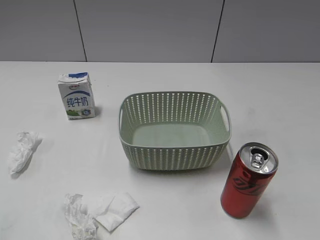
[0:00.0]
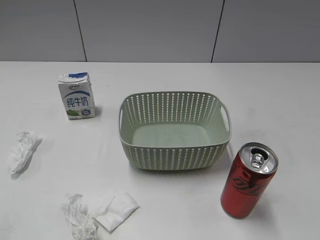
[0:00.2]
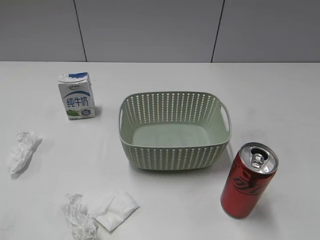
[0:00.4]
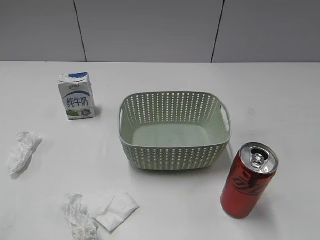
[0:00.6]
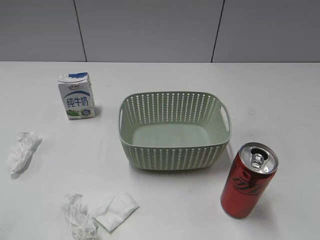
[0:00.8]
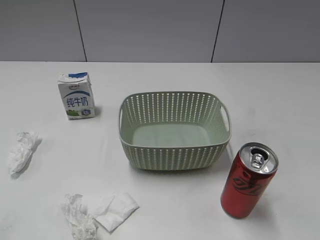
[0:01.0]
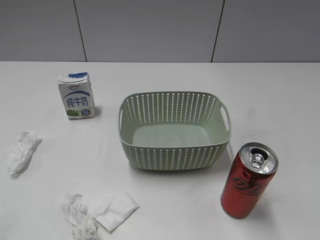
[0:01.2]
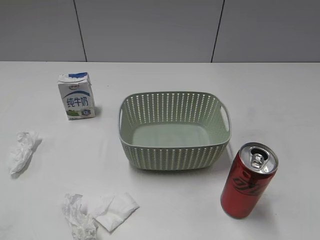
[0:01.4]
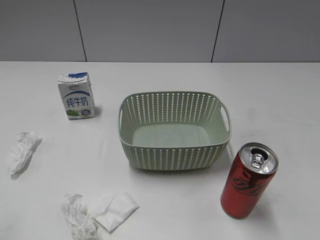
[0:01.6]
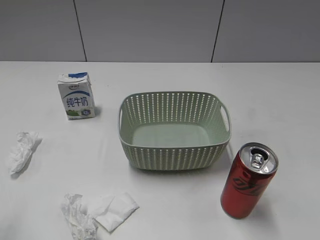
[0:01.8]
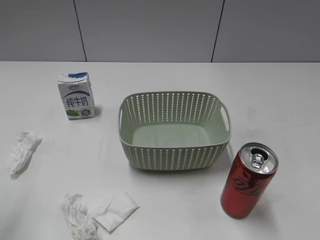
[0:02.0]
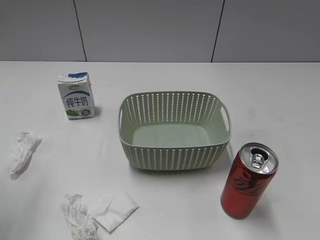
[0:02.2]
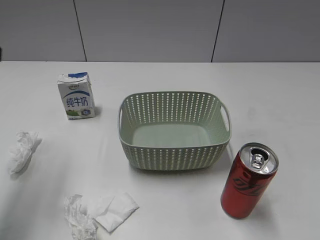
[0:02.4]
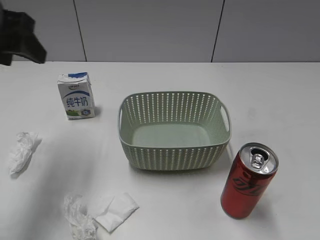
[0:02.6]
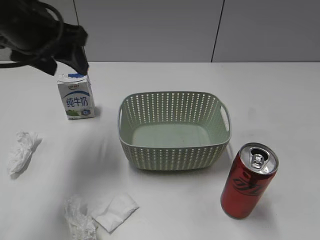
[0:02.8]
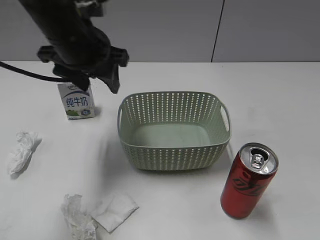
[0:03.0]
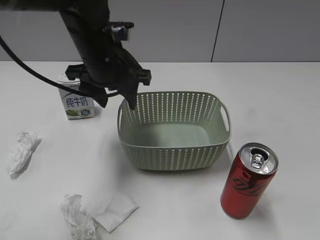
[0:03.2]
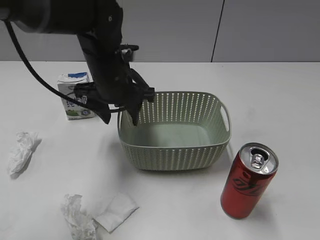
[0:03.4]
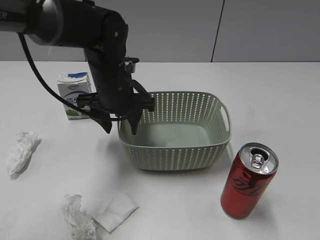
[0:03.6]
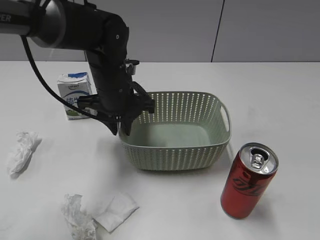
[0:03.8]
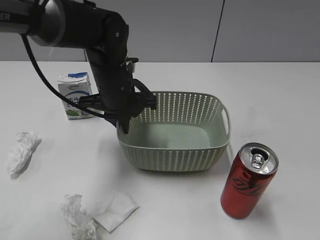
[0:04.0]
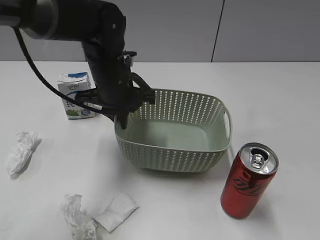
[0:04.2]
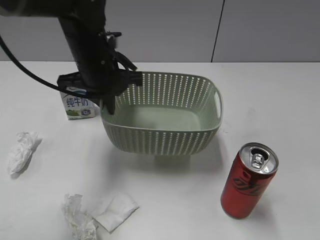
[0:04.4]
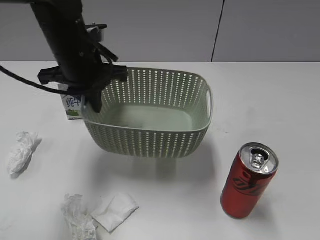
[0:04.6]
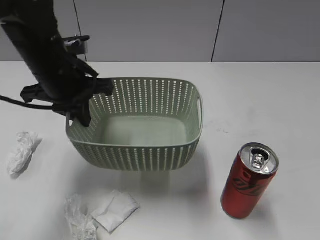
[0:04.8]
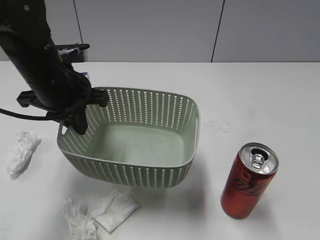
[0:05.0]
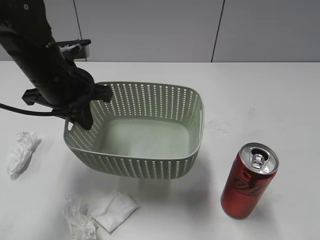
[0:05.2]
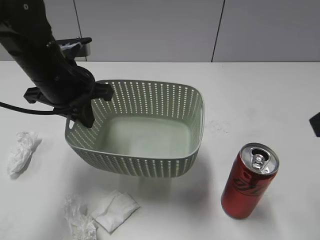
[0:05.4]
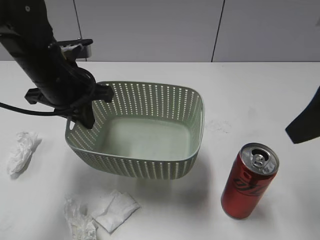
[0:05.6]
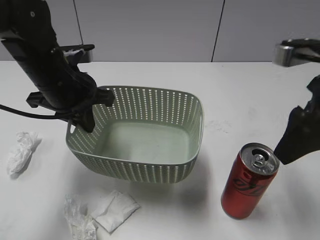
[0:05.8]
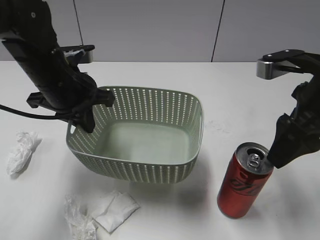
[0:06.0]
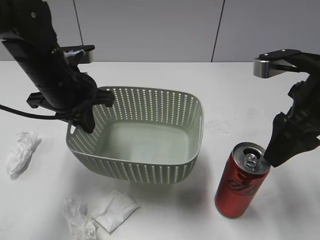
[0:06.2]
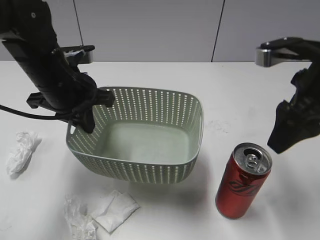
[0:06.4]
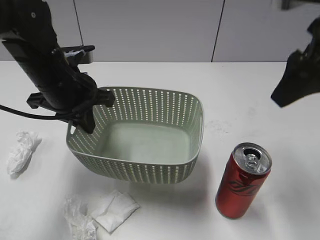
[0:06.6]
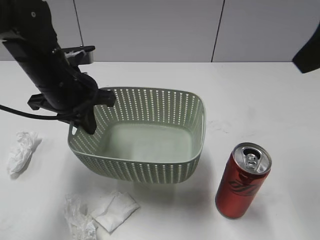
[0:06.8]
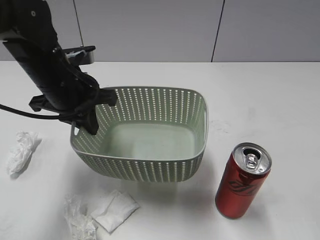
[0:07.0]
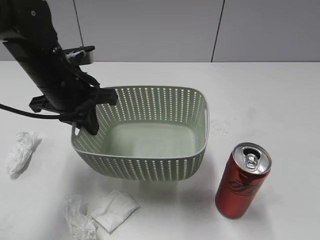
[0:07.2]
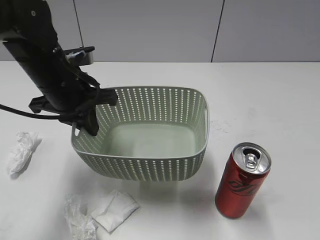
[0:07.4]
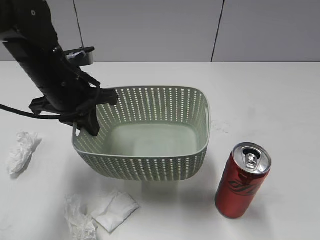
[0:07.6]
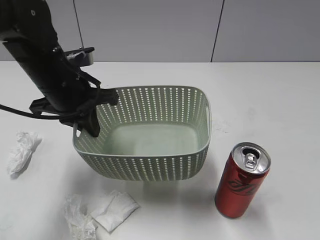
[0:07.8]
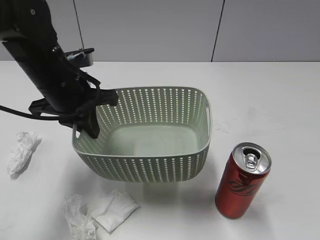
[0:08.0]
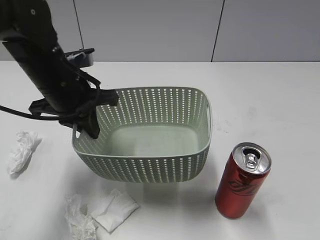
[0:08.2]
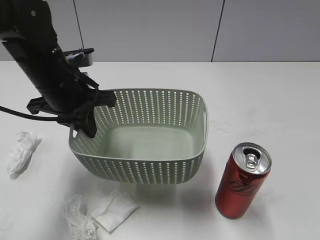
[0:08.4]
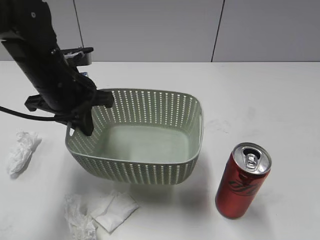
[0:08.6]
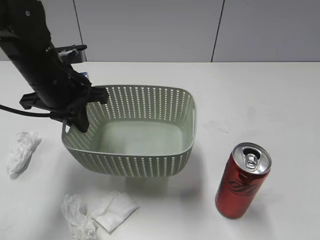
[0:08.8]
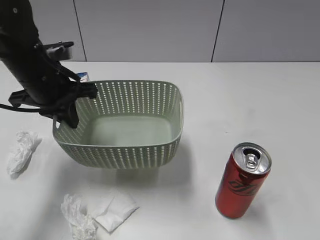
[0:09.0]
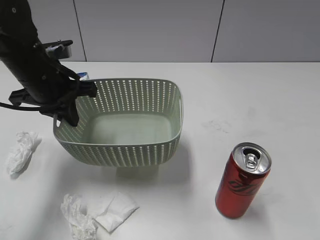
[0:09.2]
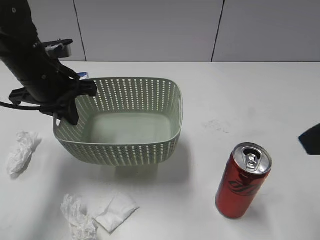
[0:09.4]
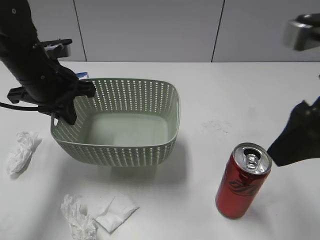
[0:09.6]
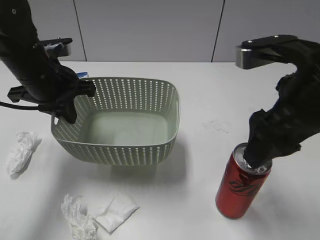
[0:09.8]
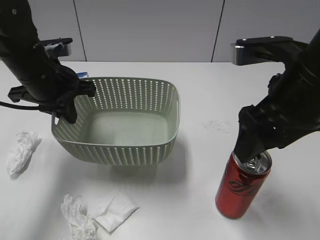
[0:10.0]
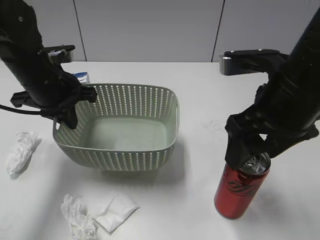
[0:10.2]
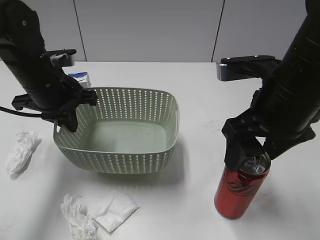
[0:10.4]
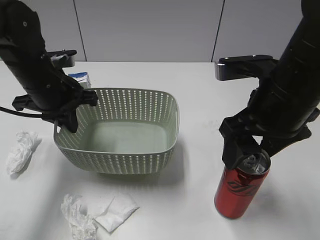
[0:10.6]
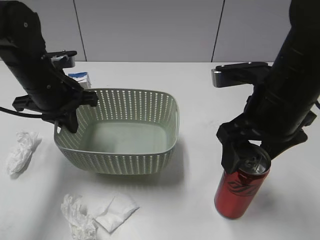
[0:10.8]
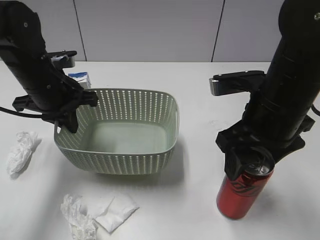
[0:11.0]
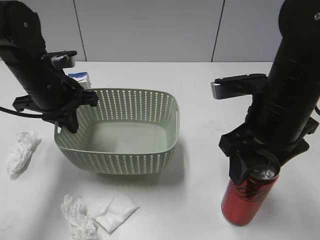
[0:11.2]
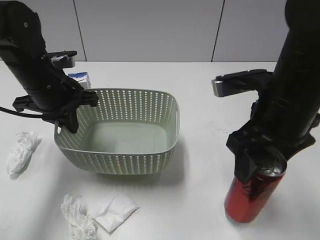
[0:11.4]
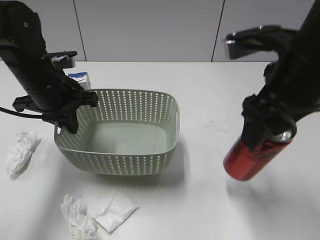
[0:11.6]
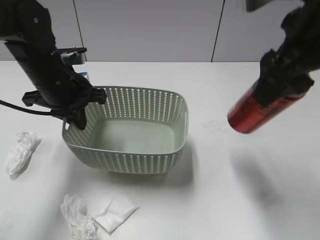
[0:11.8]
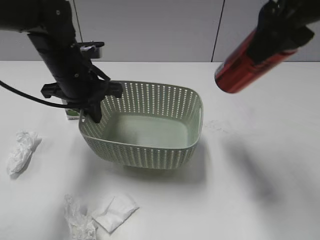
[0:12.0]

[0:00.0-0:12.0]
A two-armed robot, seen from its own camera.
Step, 2.4 to 3.8 s: Grasp the basket with left gripper.
Step, 4.0 to 5.2 s: Lift the basket with left gripper.
Step, 5.4 to 11.0 s: Grasp the cola can with right gripper.
1.6 to 3.0 s: The left gripper is displaced forward and to the right by approximately 35 cm.
3.0 to 4.4 s: The left gripper reaches some 10 cm downward, then returns, and closes up.
4.4 to 6.0 s: The left gripper moves approximately 5 cm, while the right gripper shifts approximately 25 cm forward, and closes its fingers.
6.0 to 7.6 s: The right gripper goes approximately 25 cm backward and to the right.
7.6 to 9.0 s: The right gripper is displaced forward by roughly 5 cm, and opens up.
9.0 to 10.4 s: The right gripper moves forward, to the left and downward, roughly 20 cm.
10.4 to 12.0 s: The left gripper is displaced to the right by some 5 cm, while the right gripper shifts some 15 cm upward, and closes its fingers.

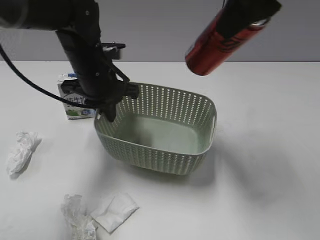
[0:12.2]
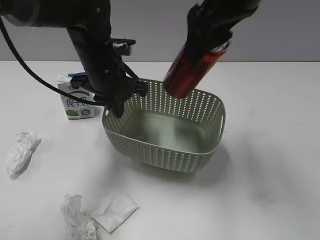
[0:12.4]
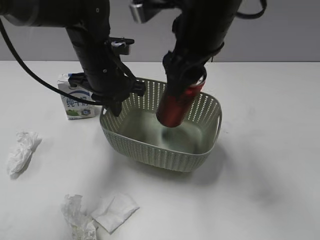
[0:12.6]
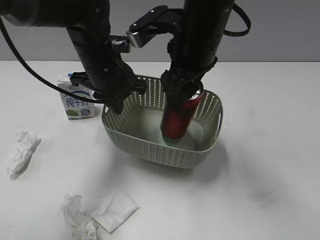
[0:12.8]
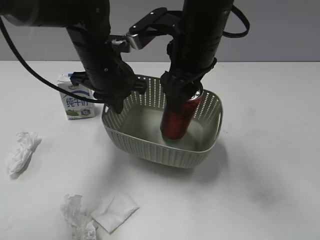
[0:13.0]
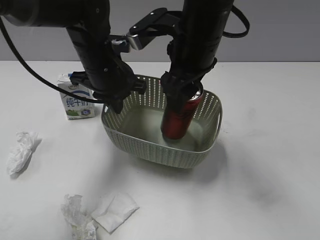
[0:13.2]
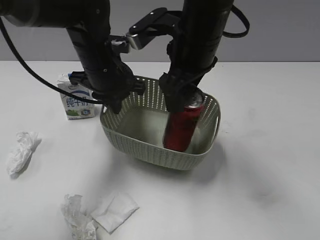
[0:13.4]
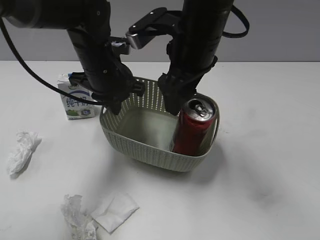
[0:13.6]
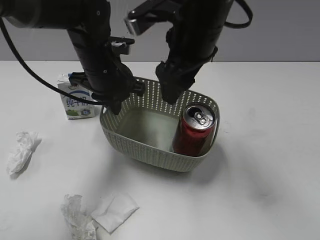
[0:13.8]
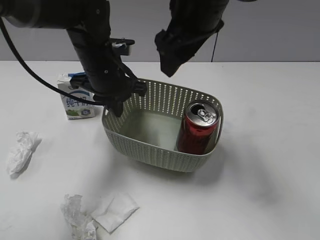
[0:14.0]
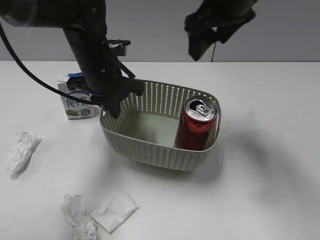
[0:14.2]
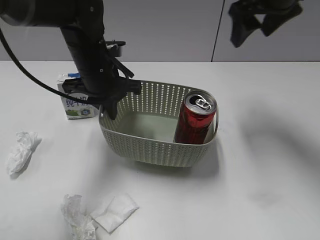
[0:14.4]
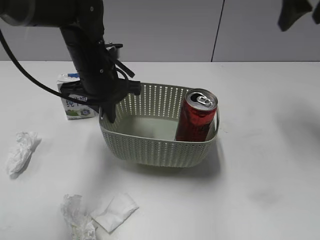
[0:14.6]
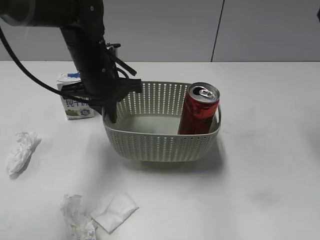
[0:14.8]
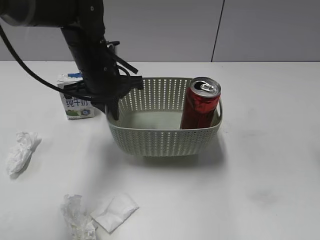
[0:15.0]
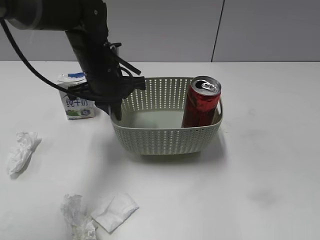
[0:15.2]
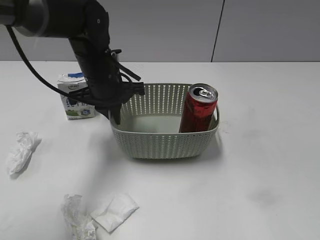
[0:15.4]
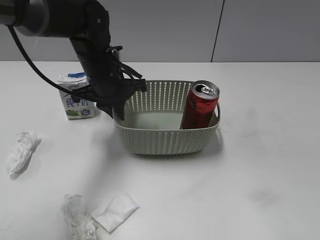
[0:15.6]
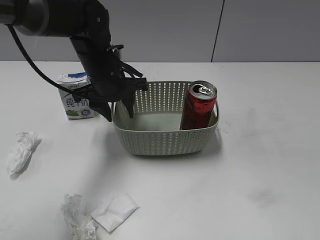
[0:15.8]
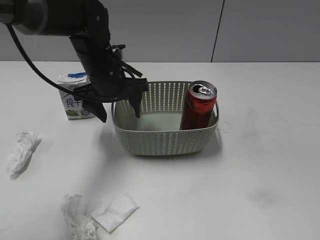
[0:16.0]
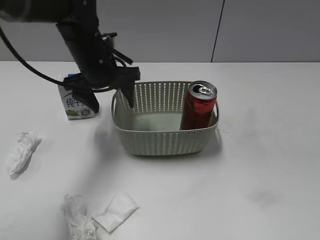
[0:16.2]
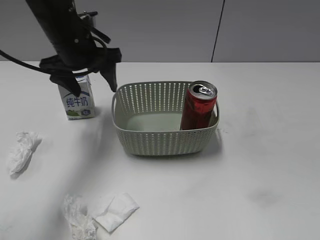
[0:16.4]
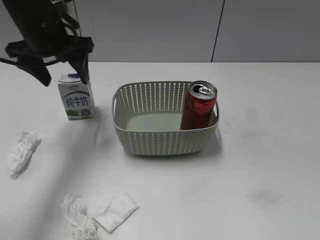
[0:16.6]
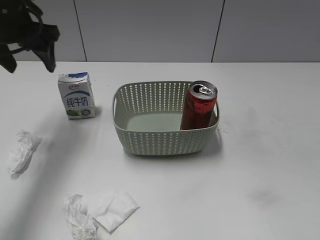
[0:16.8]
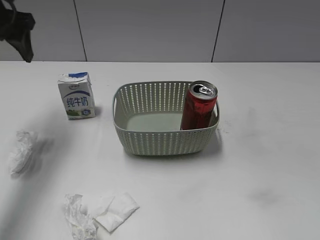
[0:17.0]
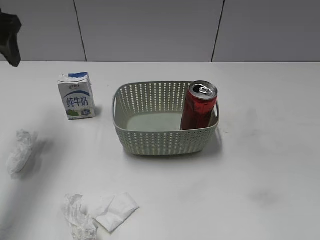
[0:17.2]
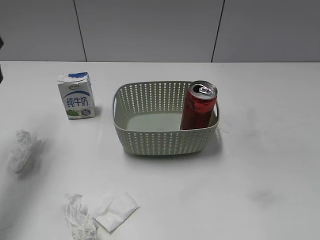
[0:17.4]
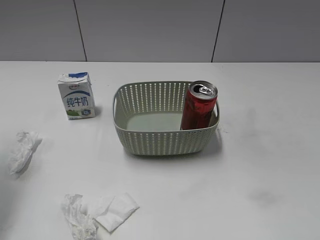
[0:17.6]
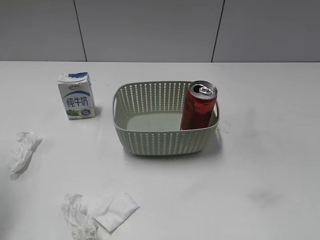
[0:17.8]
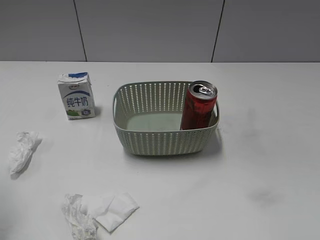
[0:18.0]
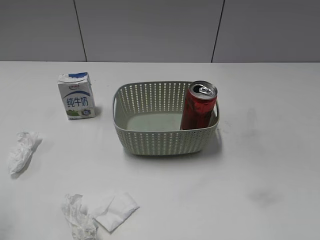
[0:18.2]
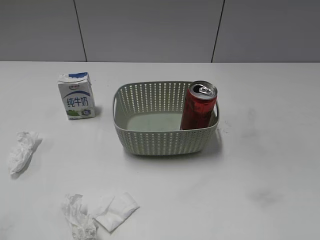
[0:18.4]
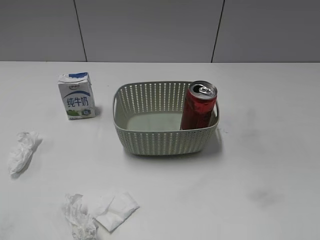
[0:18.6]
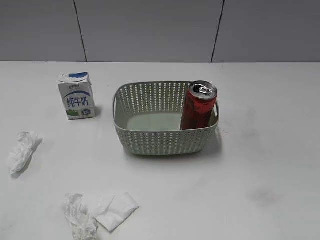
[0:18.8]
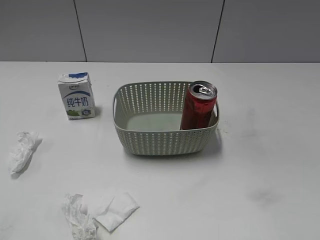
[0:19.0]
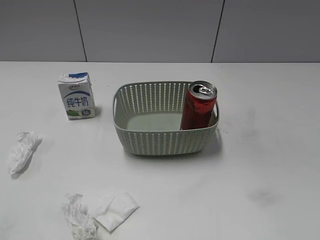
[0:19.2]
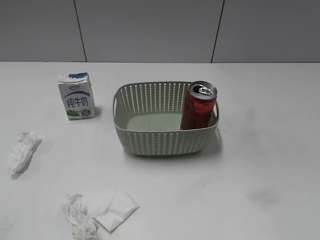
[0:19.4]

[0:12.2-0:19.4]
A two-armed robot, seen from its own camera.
Step, 12.2 to 13.4 s: Place the cola can in the basket with right gripper.
12.2 to 13.6 s: The right gripper moves downward and to the left, approximately 15 cm, and opens.
13.6 to 15.0 s: The right gripper moves to the right and upward, some 25 cm.
15.0 to 16.6 s: The left gripper heads to the left and upward, covering some 15 cm, and opens its fingers. Meanwhile the right gripper moves backward and downward, roughly 25 cm.
16.6 to 18.0 s: The left gripper moves backward and to the left, about 25 cm.

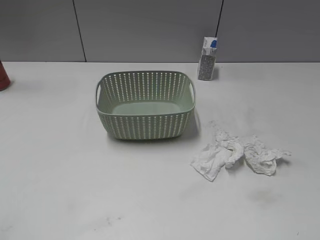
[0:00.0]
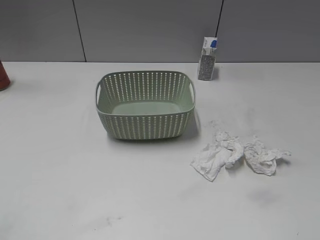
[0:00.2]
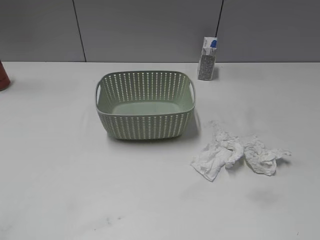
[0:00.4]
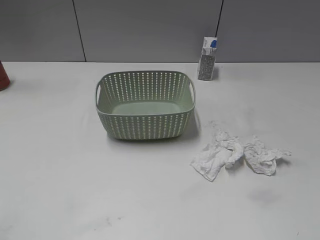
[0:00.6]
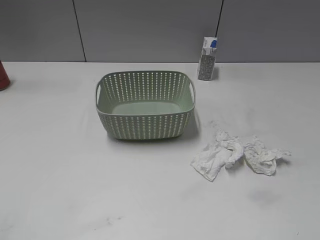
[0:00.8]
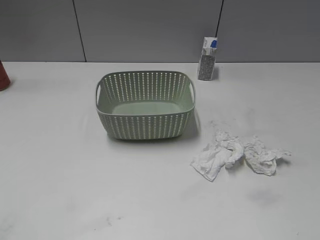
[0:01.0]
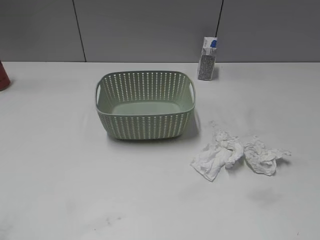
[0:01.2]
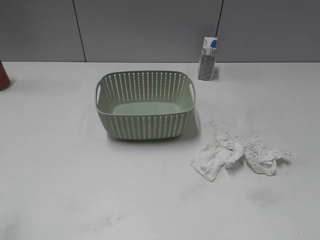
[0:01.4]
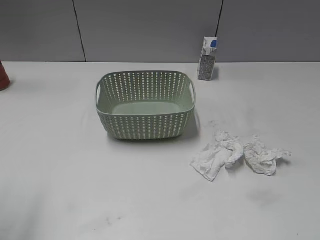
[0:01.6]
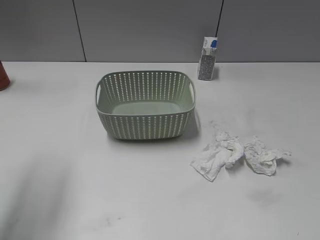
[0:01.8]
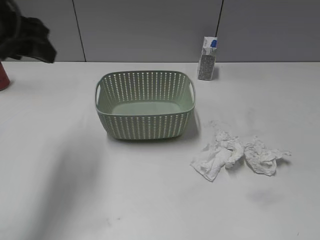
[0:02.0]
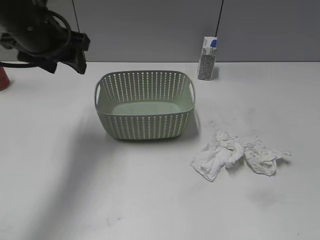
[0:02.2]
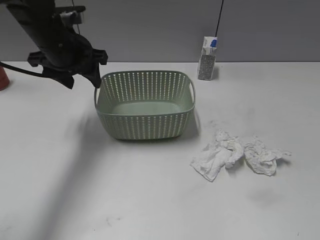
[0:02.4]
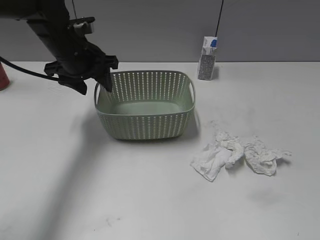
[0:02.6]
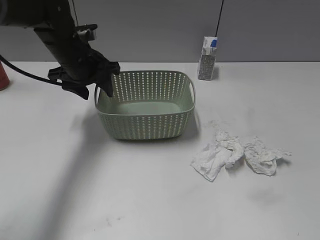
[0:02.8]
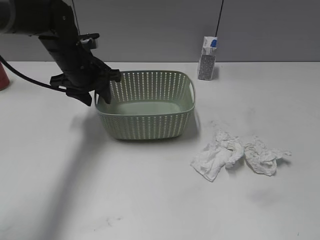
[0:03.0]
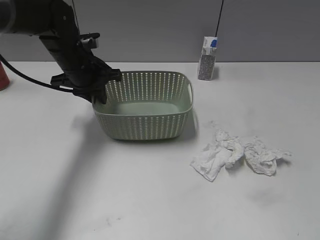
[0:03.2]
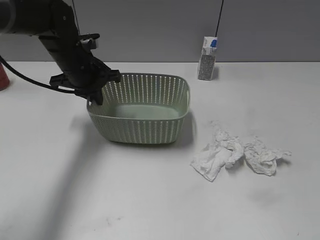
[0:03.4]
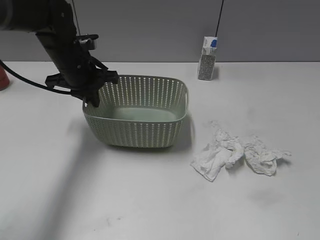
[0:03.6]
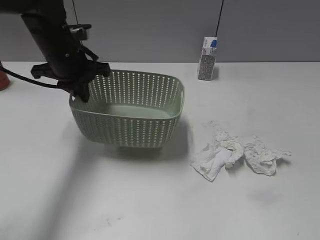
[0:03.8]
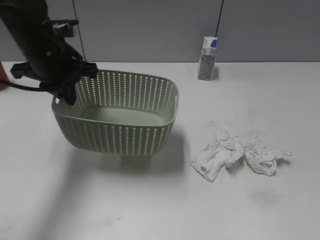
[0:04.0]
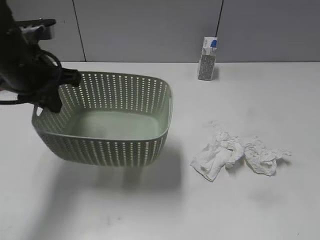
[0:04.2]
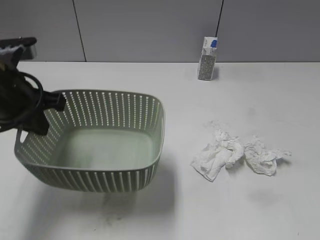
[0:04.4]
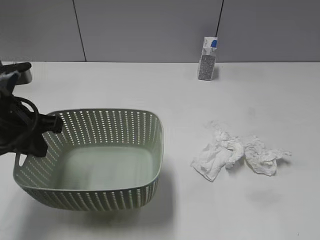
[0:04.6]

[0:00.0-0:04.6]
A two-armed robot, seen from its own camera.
Step, 2.0 to 3.8 s: Grasp the basket with left gripper.
1.6 to 3.0 s: The left gripper heads forward, downward and to the right, covering about 35 cm.
3.0 to 4.6 s: The left gripper goes approximately 20 cm backward and to the left, and closes its fingers.
